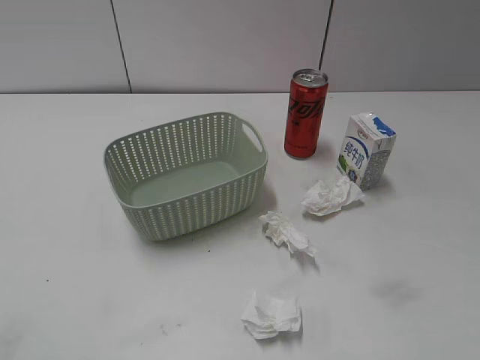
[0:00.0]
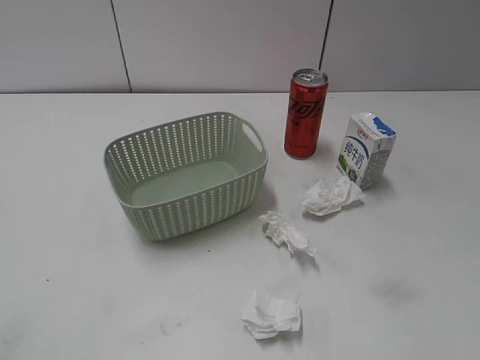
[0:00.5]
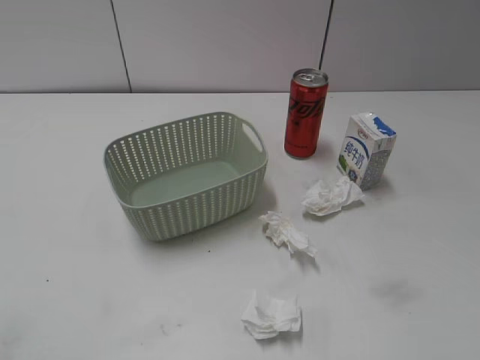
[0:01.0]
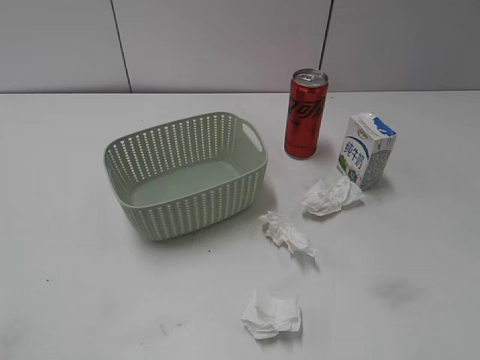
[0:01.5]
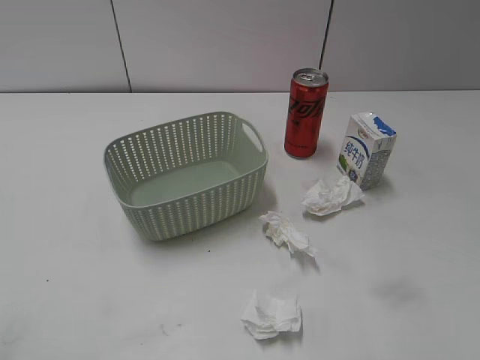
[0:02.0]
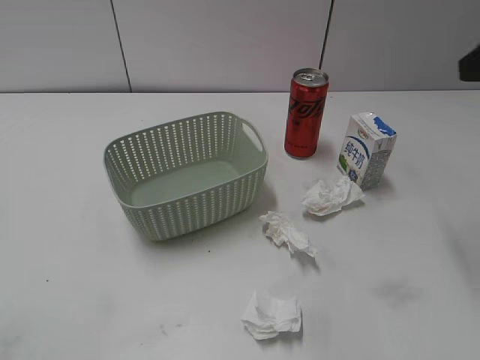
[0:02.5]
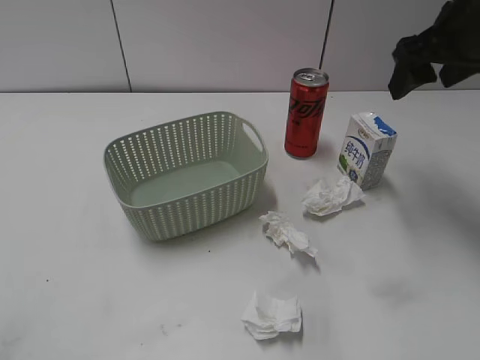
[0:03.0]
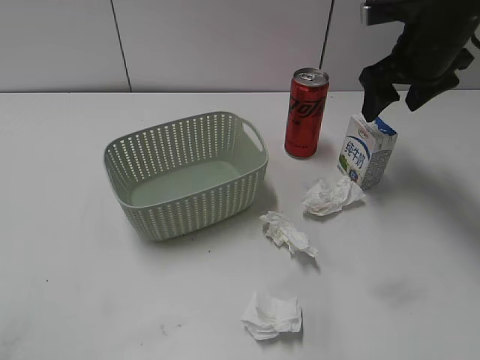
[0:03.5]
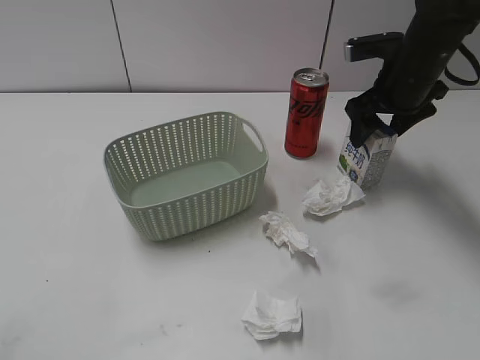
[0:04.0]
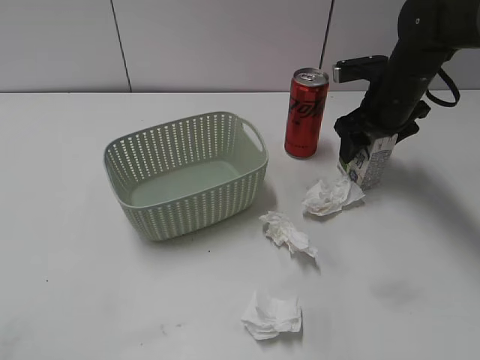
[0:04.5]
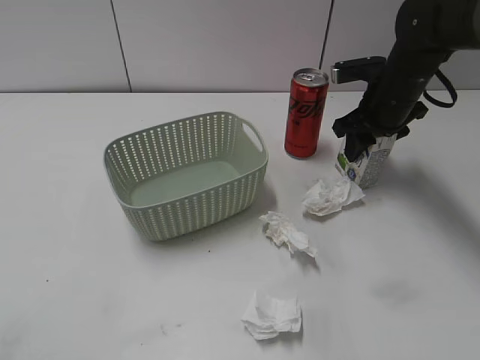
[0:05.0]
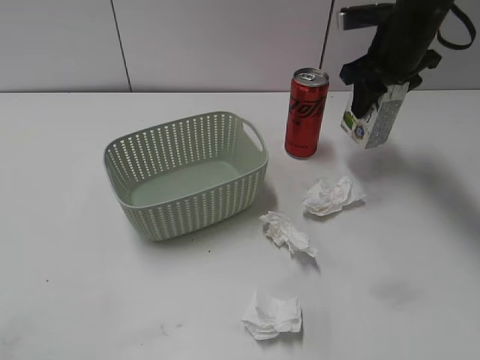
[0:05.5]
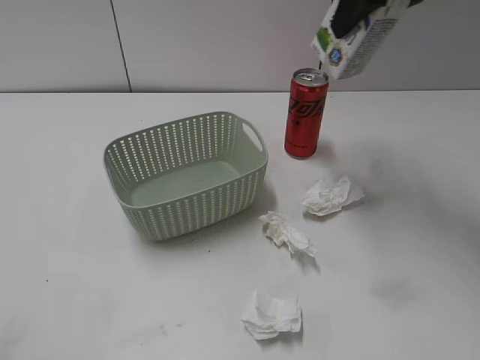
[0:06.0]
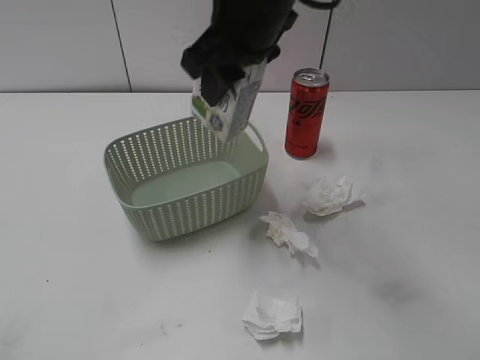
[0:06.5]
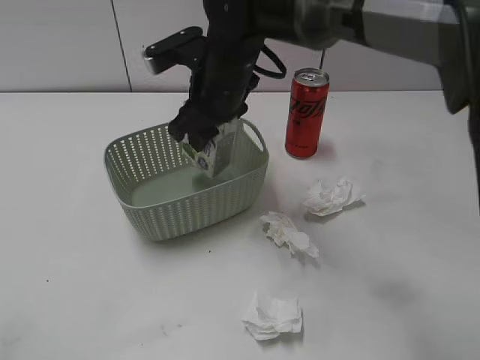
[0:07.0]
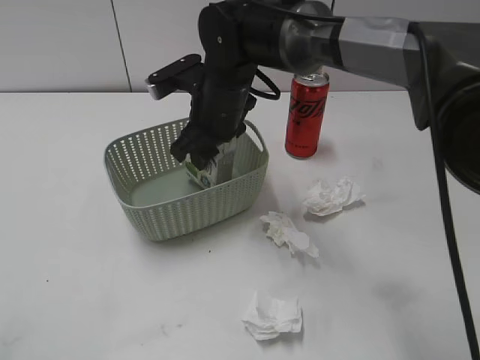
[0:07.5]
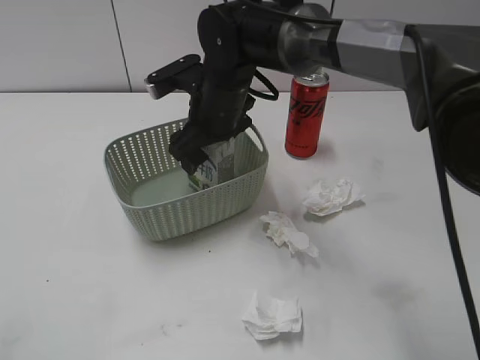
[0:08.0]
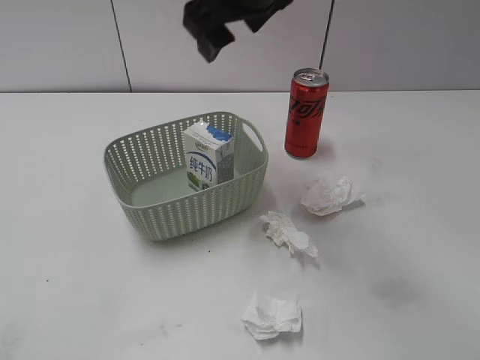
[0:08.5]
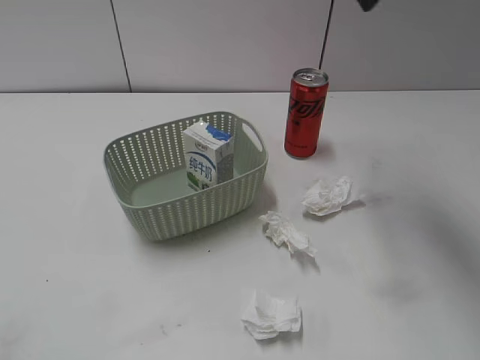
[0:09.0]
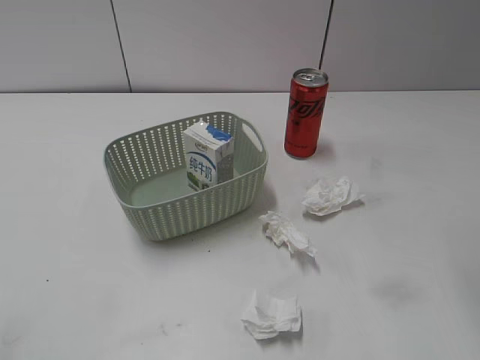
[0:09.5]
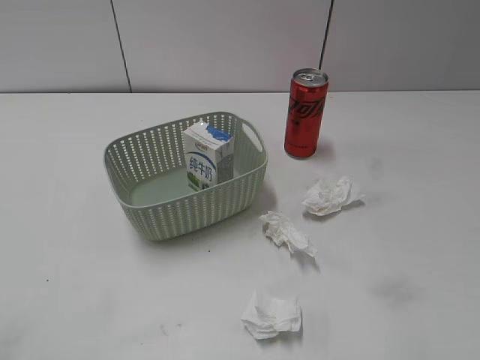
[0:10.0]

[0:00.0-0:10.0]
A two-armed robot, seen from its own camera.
Step, 0:02.5 to 0:05.0: Grasp the milk with right gripper.
Step, 0:05.5 to 0:08.0: Place the milk in the basket with right gripper.
0:02.0 to 0:04.0: The right gripper shifts some 35 cm forward and downward.
0:04.0 to 0:06.0: The right gripper heads upward, covering roughly 15 cm, and closes its fingers.
0:06.0 to 0:08.0: The right gripper shifts roughly 25 cm to the left and downward, and opens its fingers.
0:08.0 to 0:10.0: The right gripper travels to the right, backward and upward by roughly 40 cm.

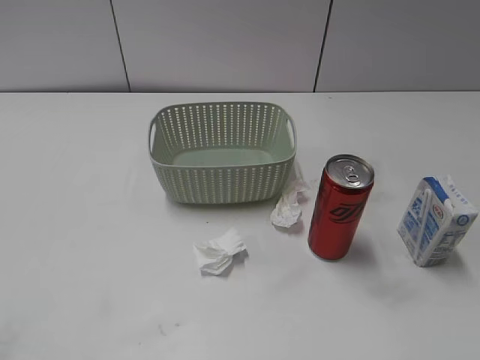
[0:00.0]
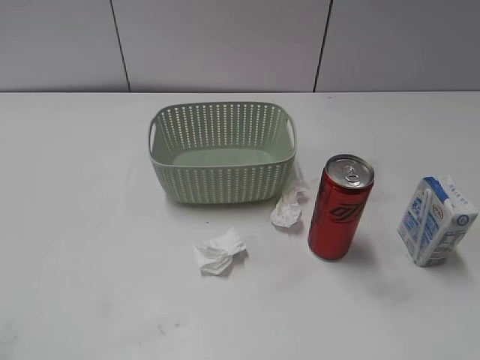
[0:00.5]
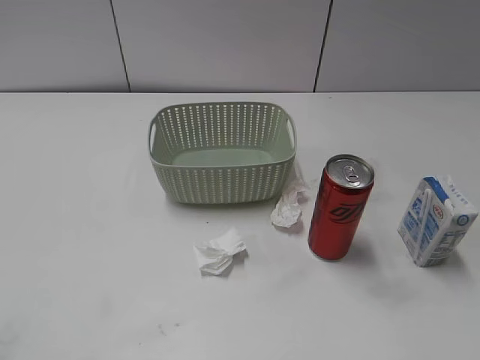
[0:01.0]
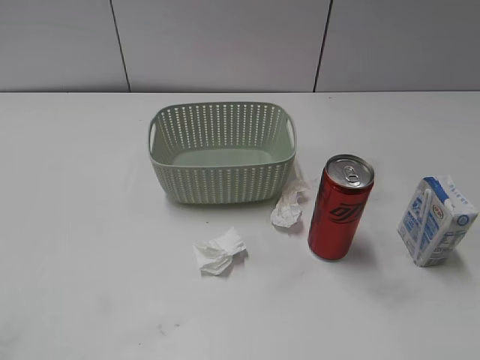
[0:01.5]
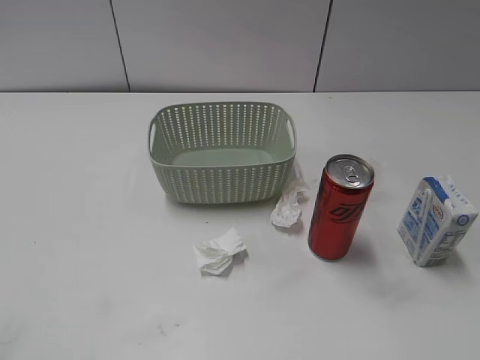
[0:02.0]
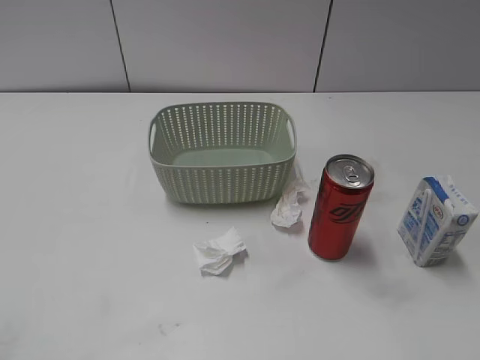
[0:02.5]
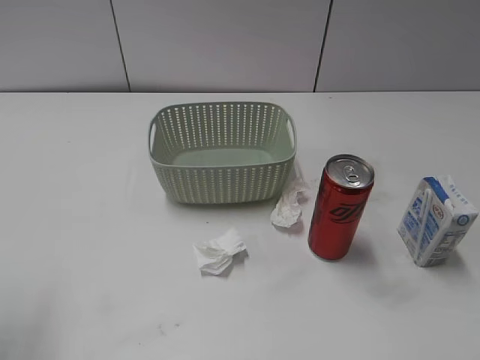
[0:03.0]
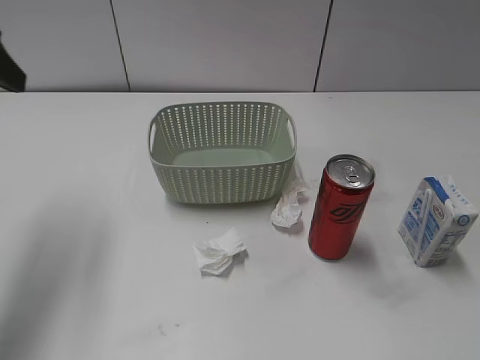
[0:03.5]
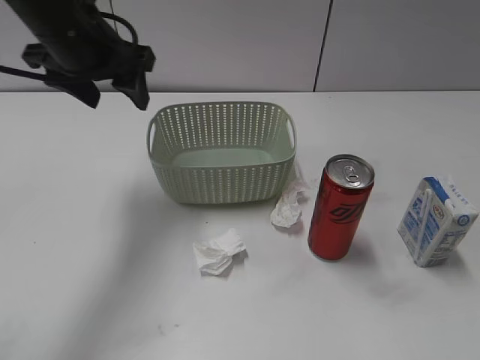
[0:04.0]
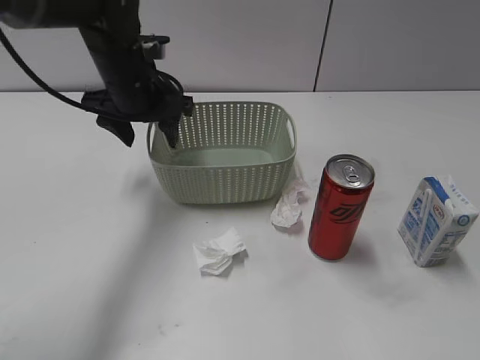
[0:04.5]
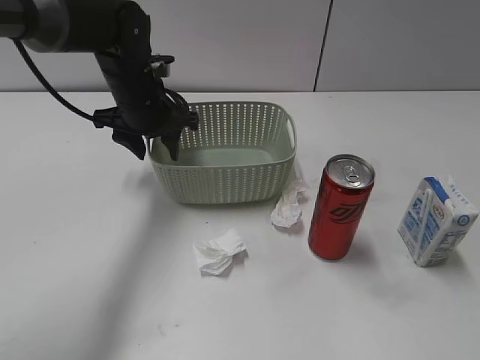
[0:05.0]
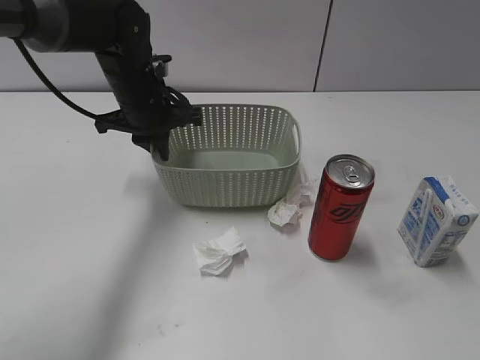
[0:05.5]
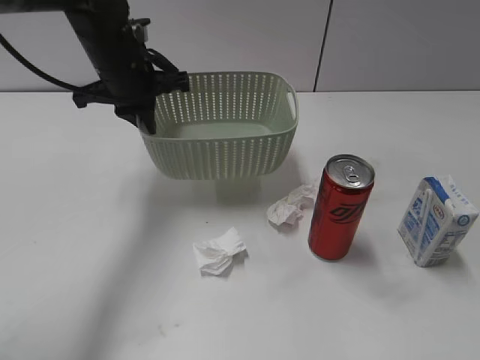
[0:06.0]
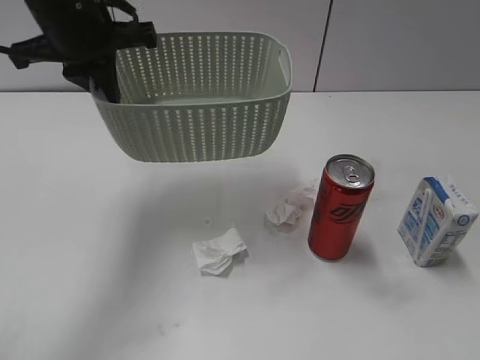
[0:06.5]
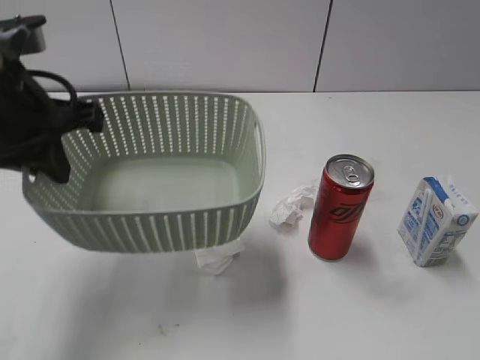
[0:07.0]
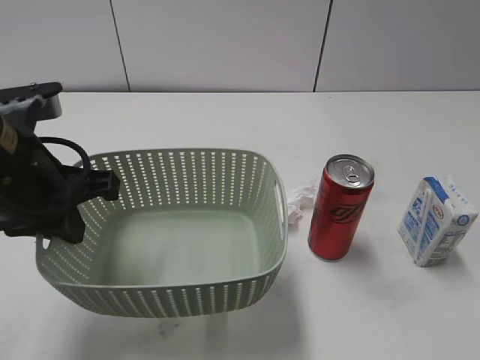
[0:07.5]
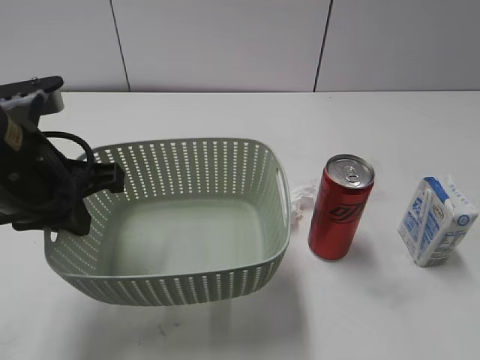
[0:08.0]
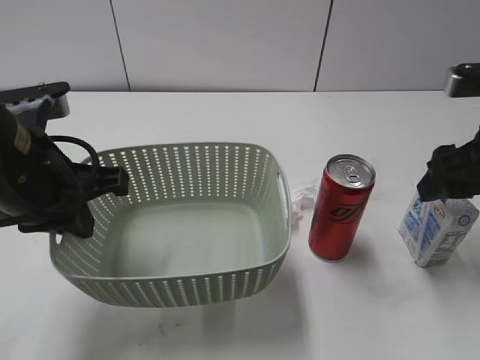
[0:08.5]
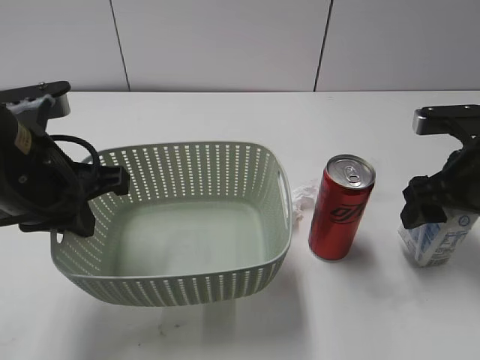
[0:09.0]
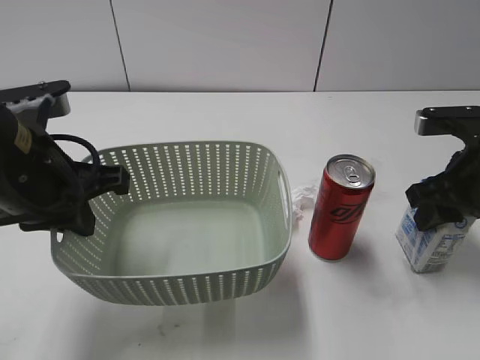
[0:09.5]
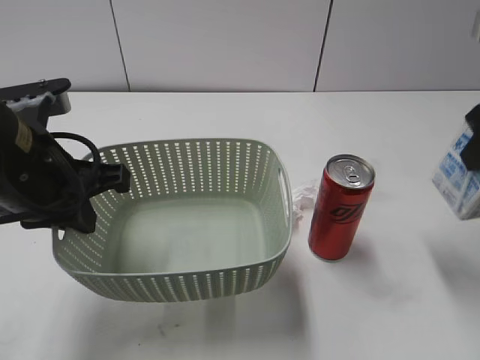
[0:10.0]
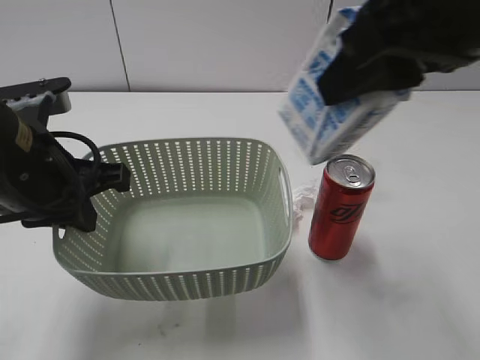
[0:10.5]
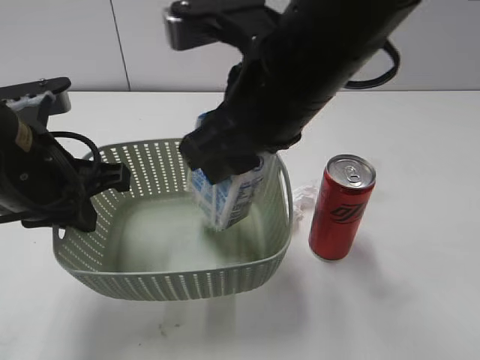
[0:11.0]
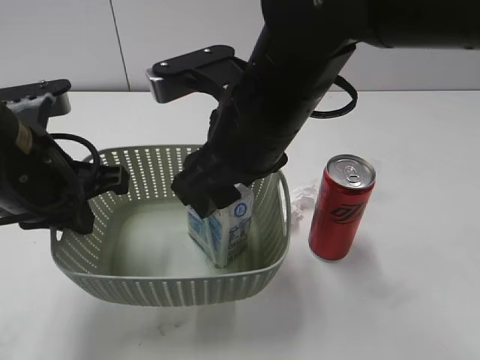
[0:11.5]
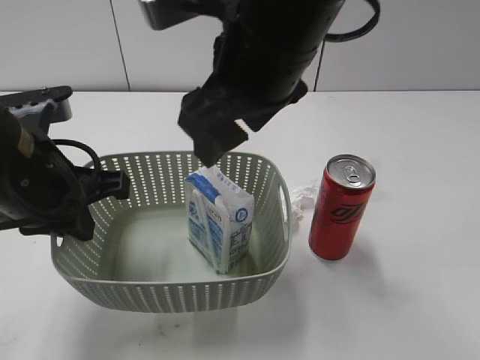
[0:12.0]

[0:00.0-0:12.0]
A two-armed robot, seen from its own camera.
Step, 0:03.5 to 0:05.0: Grasp the basket with left gripper.
Step, 0:05.5 to 0:07.0: Lift the basket with left gripper.
Step, 0:07.5 to 0:09.5: Grasp the milk with right gripper.
Step, 0:10.0 to 0:11.5: Place the milk in the basket with right gripper.
0:02.0 to 0:04.0: The left gripper travels forward and to the right by roughly 40 cm, and opens.
0:04.0 to 0:06.0: The left gripper shifts roughly 5 cm downward, and closes up.
0:06.0 to 0:08.0: The left gripper travels backward by approximately 20 cm; the right gripper travels forward by about 10 cm.
0:08.0 to 0:10.0: The right gripper heads forward, covering about 15 cm, and closes its fingers.
0:10.0 to 0:12.0: The right gripper is displaced to the left by roughly 25 cm, and opens its fingers.

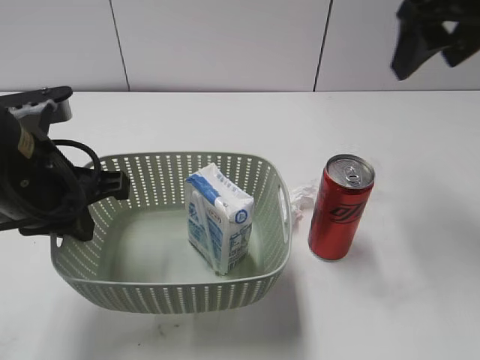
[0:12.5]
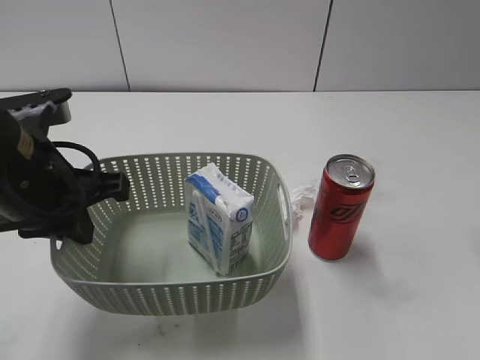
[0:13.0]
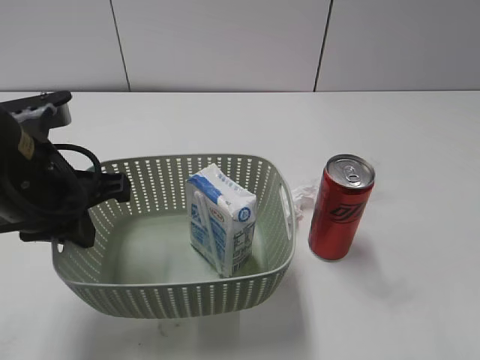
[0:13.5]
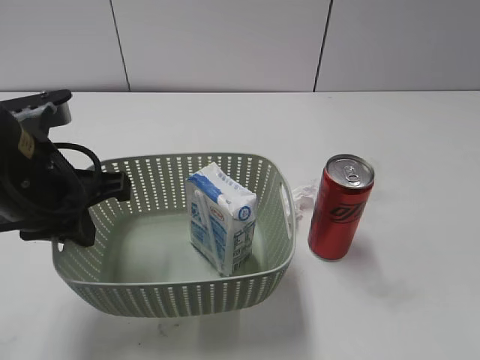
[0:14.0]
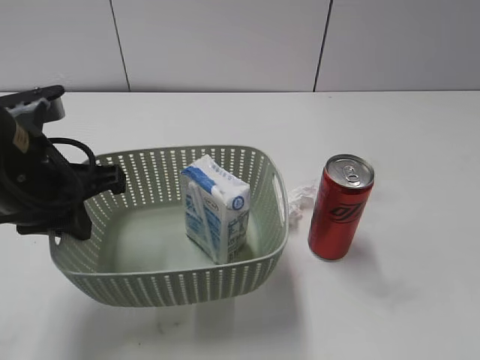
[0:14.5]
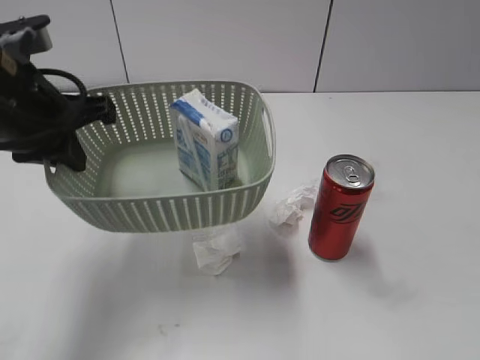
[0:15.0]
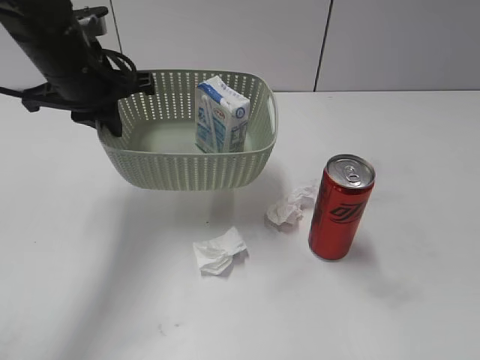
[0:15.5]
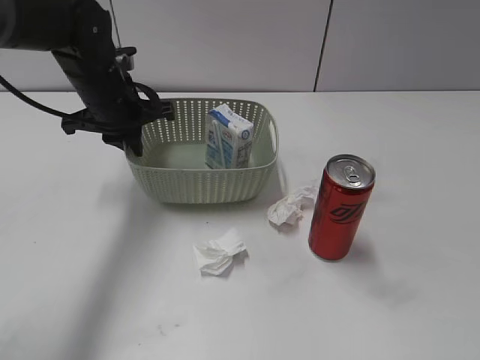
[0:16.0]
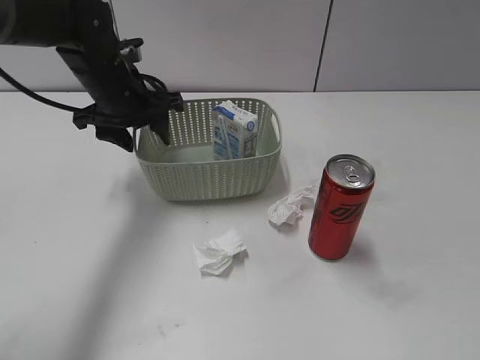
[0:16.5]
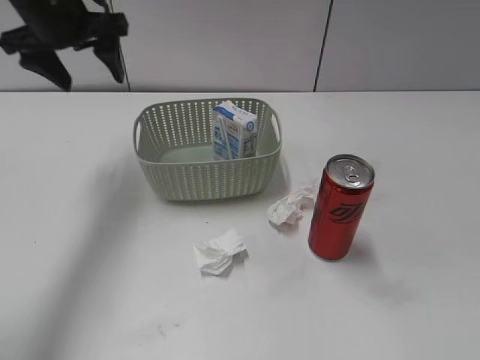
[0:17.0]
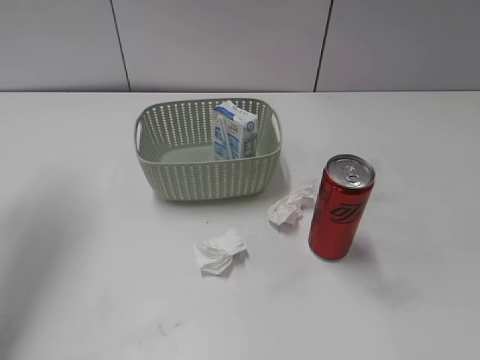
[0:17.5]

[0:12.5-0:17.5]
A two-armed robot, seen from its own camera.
Step, 0:12.5 to 0:16.5: Place the basket on the table with left gripper.
0:12.5 to 0:15.0: The left gripper moves approximately 5 cm. Meanwhile the right gripper travels backward by roughly 30 cm.
0:15.0 to 0:17.5: The left gripper is displaced to the left, upward and forward by about 15 cm, and opens up.
